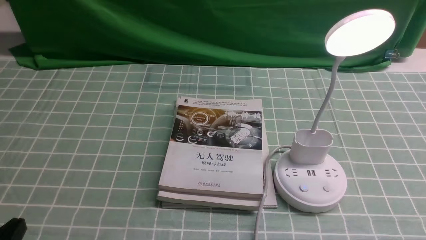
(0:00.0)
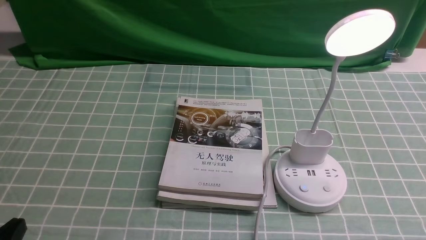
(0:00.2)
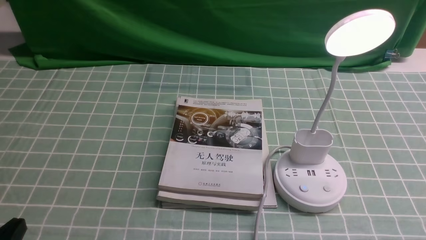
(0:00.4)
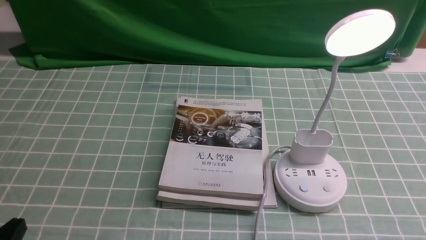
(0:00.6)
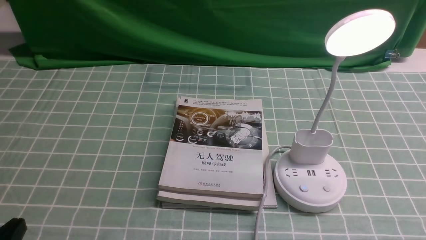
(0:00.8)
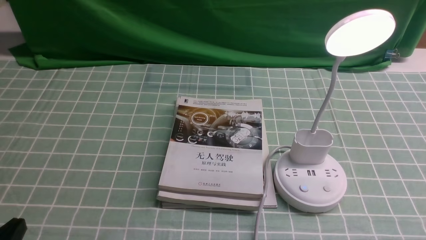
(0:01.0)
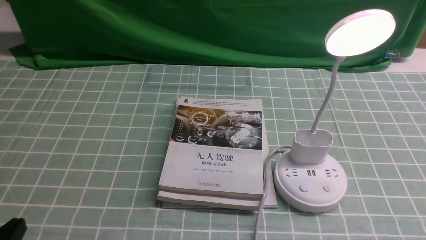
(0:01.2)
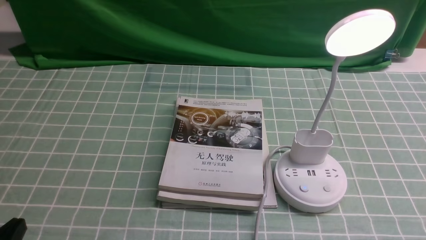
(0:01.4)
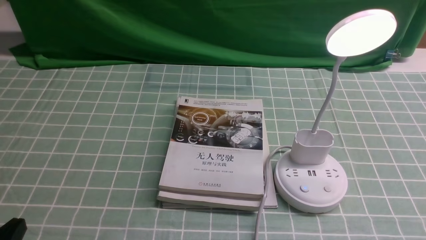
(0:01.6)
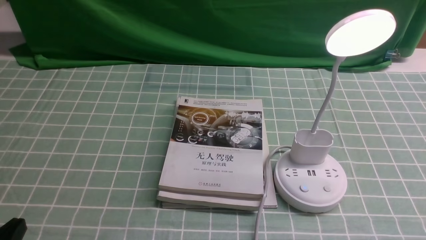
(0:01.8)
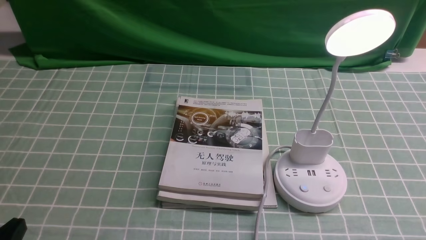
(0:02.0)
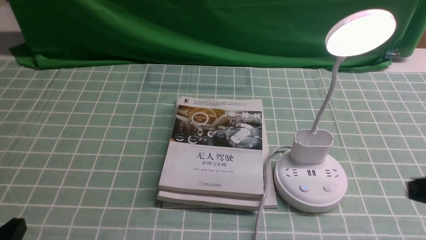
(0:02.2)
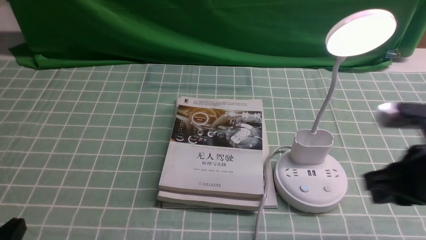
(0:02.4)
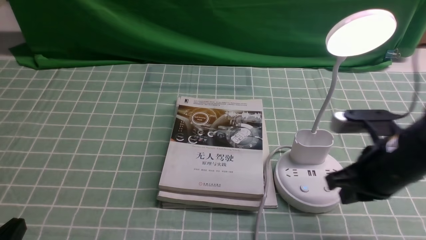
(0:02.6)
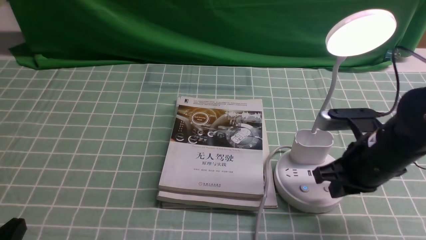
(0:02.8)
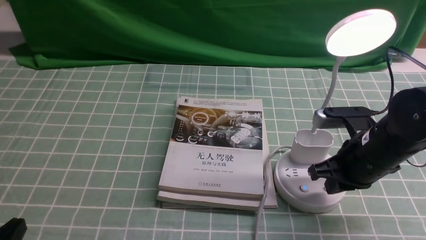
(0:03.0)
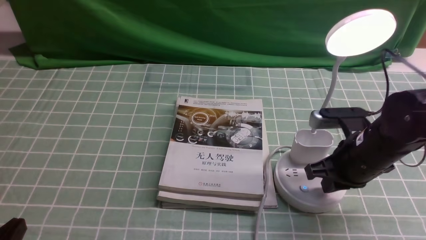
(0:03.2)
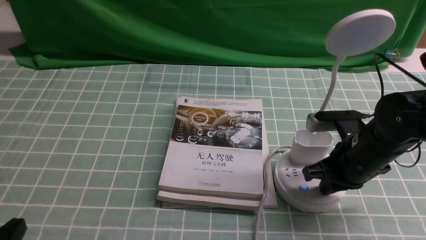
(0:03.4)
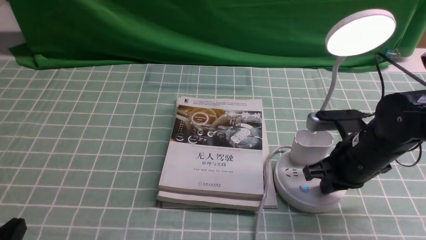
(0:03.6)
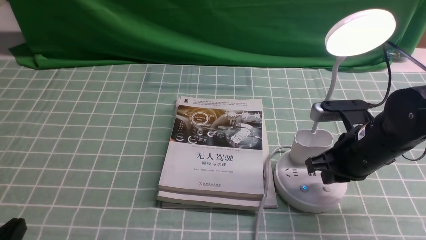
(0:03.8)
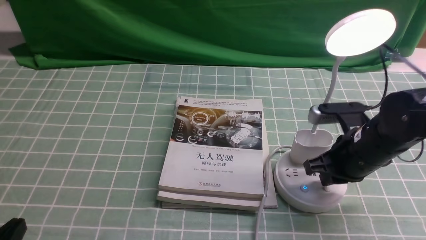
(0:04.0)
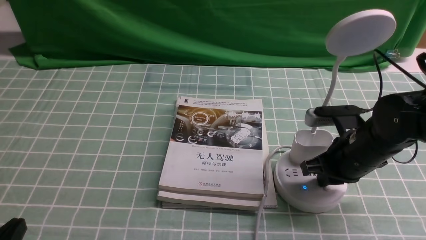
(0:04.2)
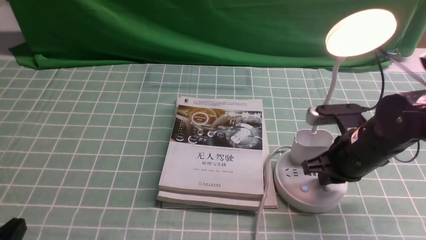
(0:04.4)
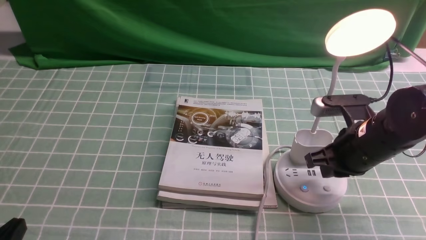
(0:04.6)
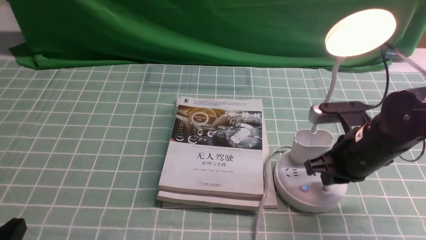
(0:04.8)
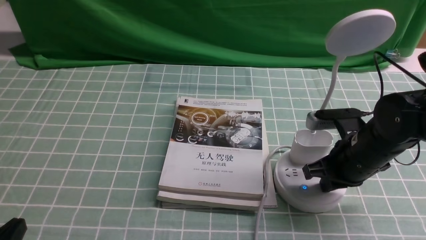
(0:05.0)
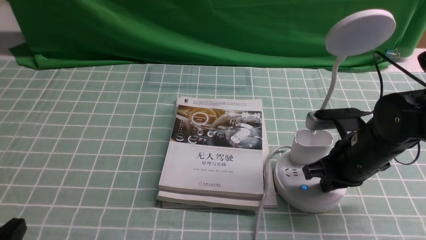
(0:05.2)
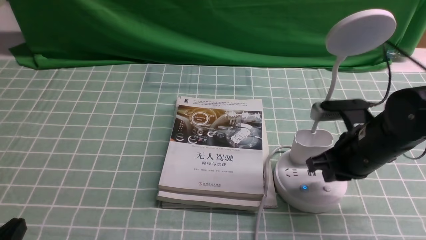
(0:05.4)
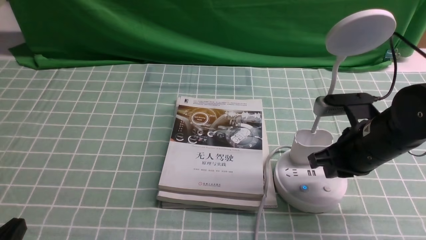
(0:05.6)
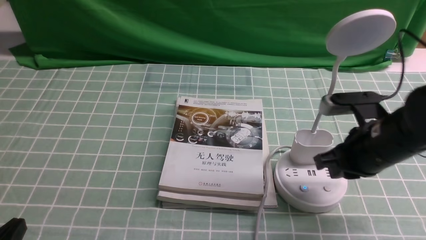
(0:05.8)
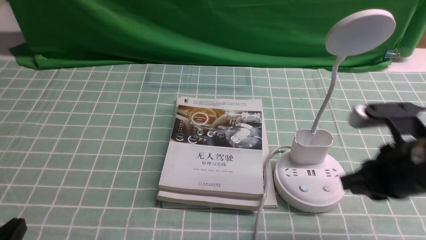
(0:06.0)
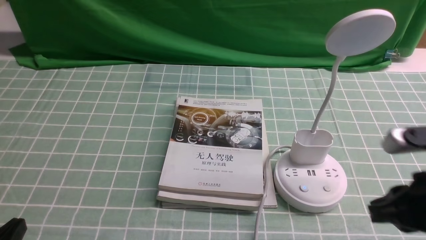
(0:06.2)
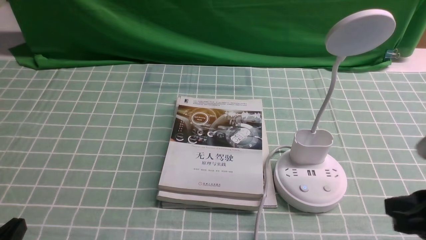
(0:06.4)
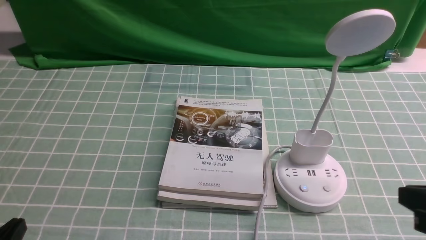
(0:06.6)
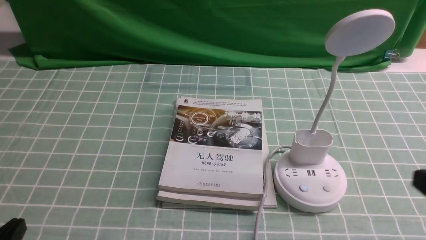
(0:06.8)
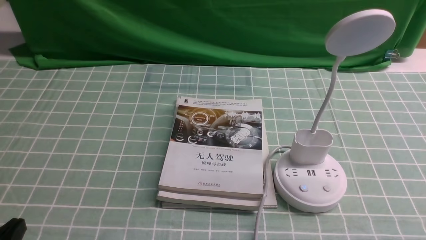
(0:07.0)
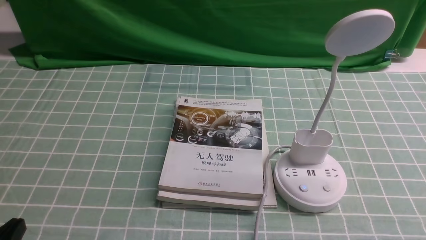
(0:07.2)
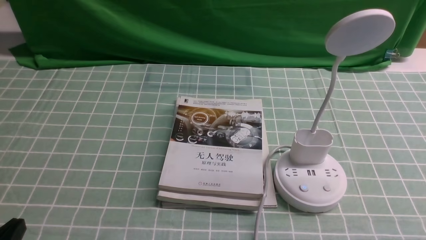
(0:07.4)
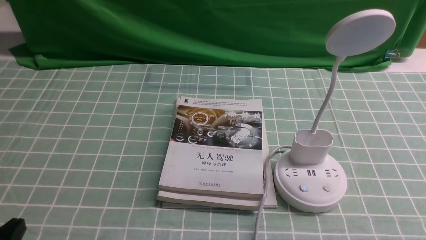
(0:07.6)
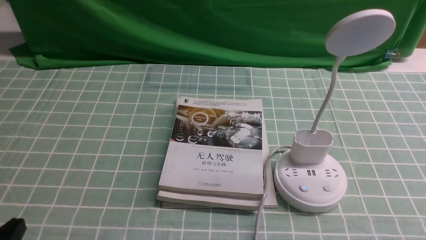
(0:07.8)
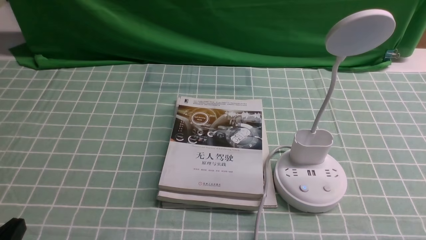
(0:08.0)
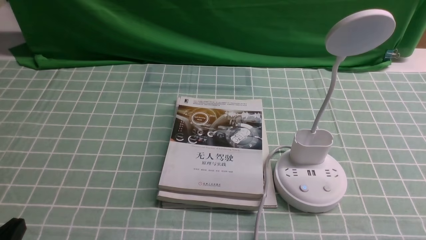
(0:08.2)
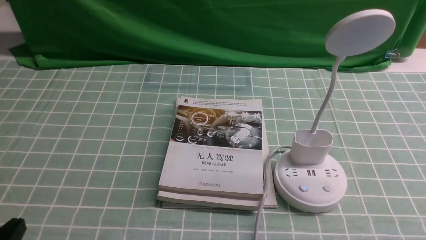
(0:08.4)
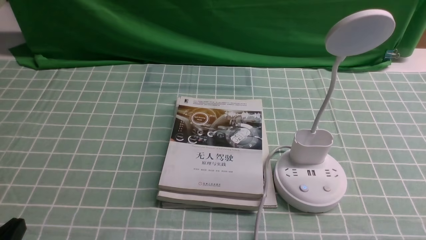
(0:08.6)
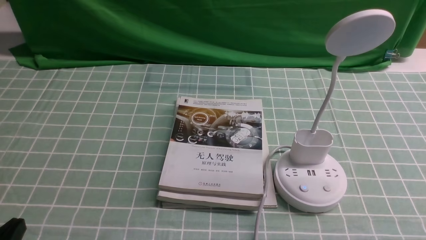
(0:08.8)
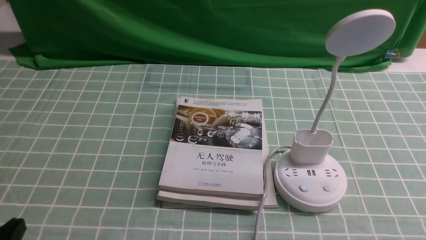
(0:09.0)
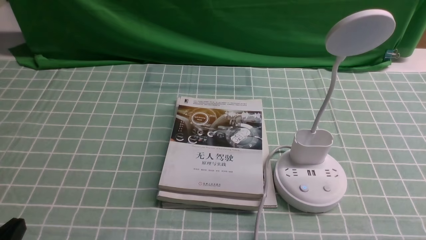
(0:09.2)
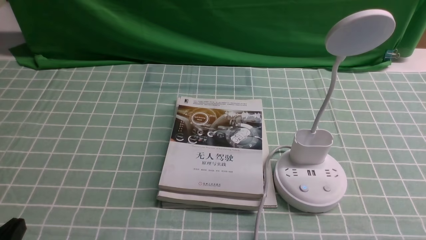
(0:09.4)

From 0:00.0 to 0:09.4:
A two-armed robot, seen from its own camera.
Task of the whole recording: turn off the desk lamp on the blue coffee tablecloth by hand.
Step, from 0:00.0 to 0:05.2: use the right arm to press the button switch on the lamp holder.
From 0:01.6 to 0:03.2: The right gripper travels forward and to the left by some 25 cm, and closes its fingers.
From 0:03.2 to 0:04.8: The grippers move only a little.
From 0:04.8 to 0:06.2: The right gripper moves backward and upward, roughly 15 cm.
From 0:06.2 to 0:07.8: The right gripper goes some 15 cm backward, downward and to the right.
